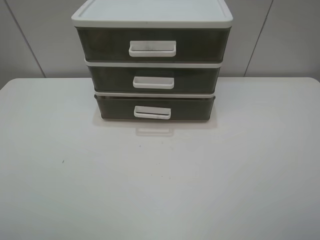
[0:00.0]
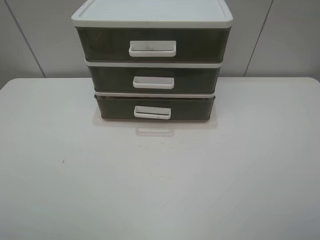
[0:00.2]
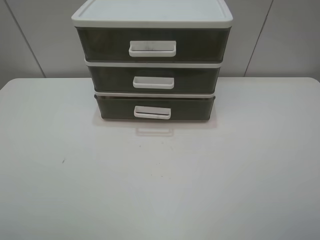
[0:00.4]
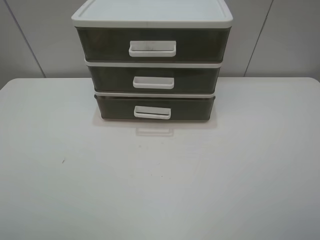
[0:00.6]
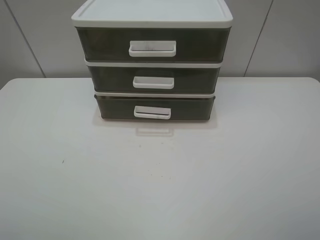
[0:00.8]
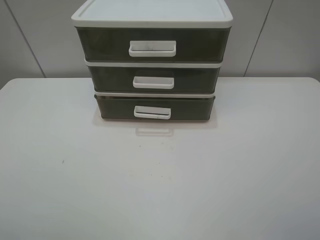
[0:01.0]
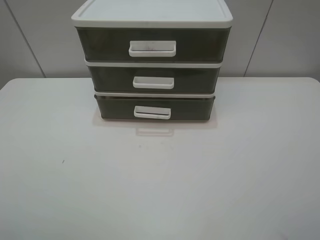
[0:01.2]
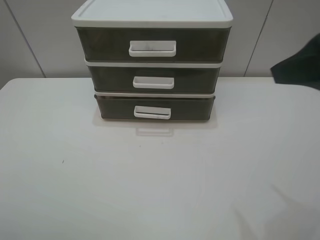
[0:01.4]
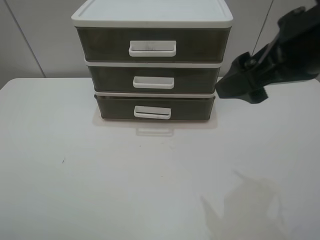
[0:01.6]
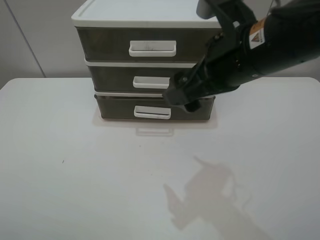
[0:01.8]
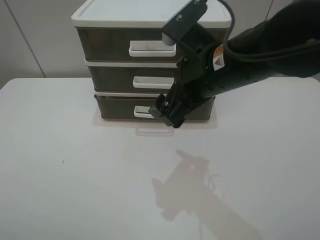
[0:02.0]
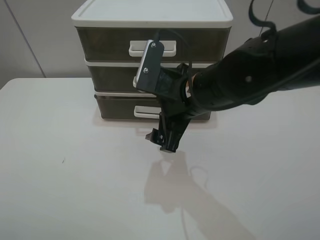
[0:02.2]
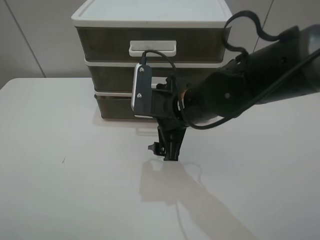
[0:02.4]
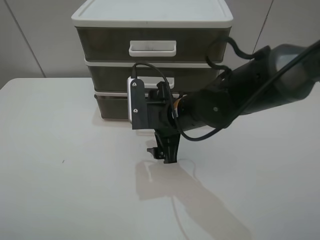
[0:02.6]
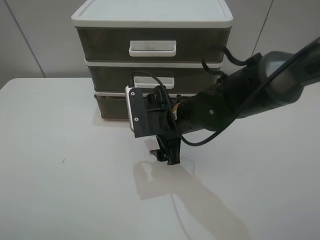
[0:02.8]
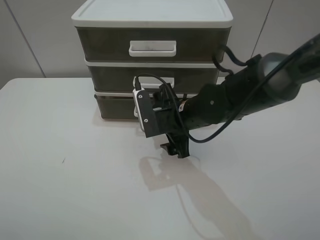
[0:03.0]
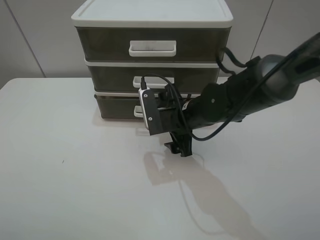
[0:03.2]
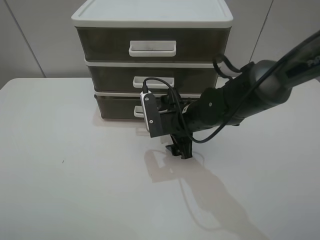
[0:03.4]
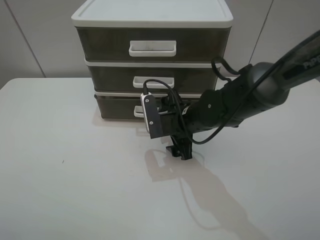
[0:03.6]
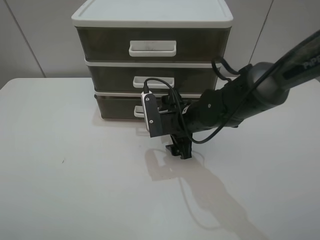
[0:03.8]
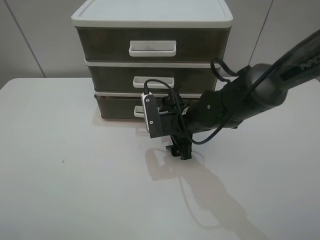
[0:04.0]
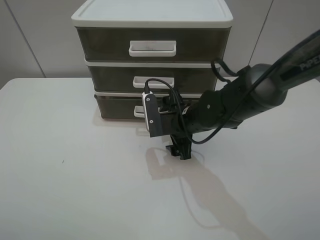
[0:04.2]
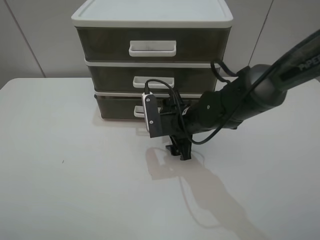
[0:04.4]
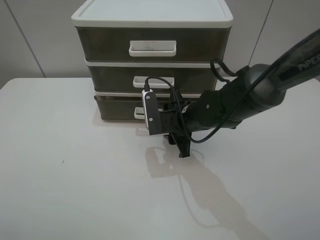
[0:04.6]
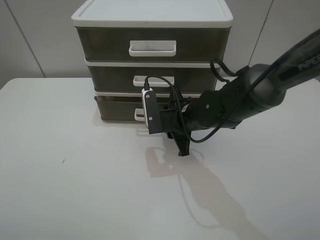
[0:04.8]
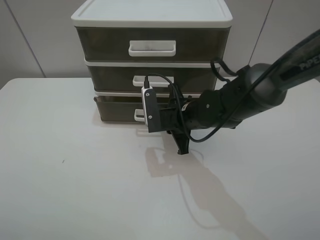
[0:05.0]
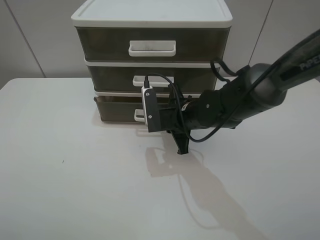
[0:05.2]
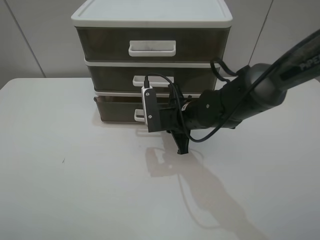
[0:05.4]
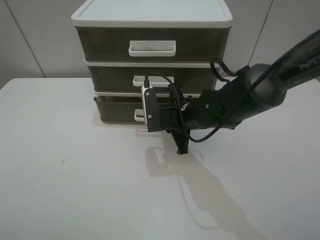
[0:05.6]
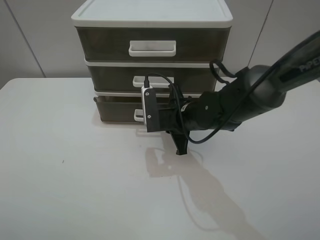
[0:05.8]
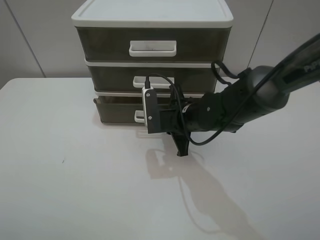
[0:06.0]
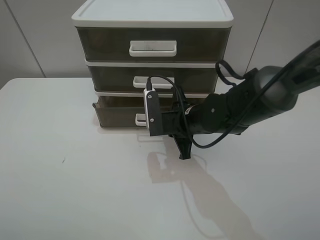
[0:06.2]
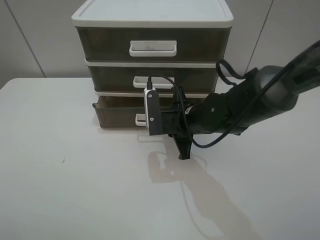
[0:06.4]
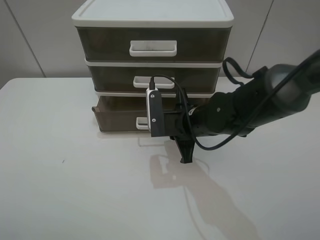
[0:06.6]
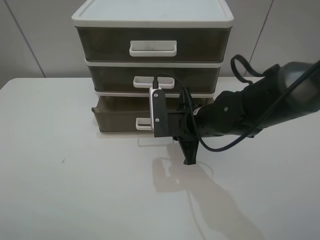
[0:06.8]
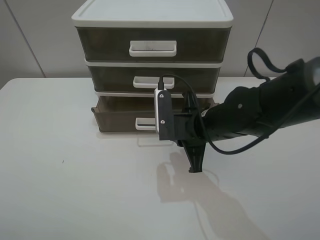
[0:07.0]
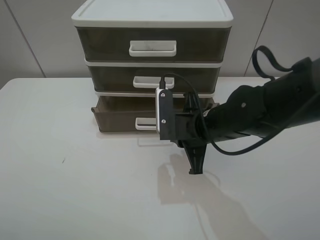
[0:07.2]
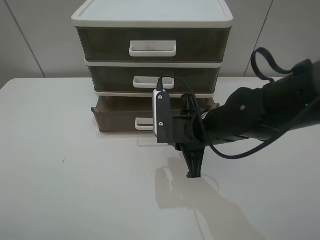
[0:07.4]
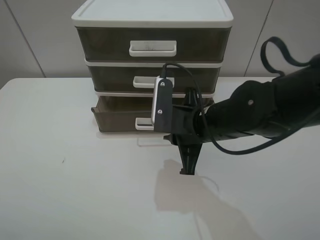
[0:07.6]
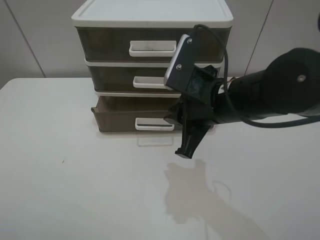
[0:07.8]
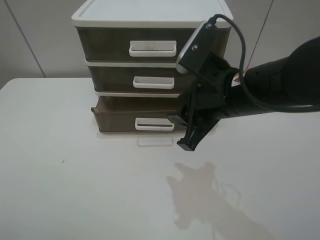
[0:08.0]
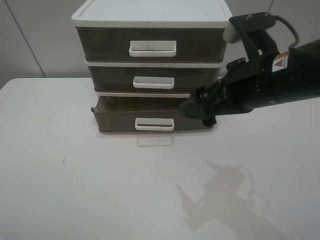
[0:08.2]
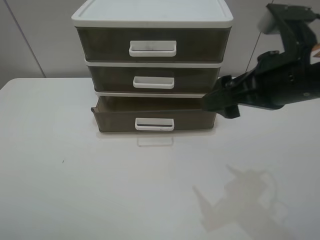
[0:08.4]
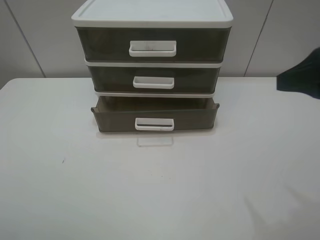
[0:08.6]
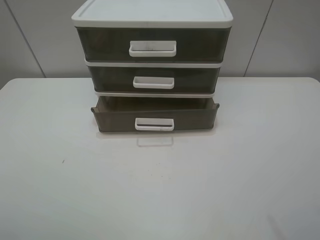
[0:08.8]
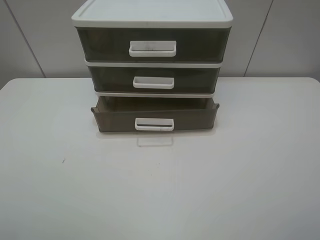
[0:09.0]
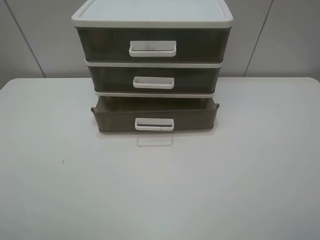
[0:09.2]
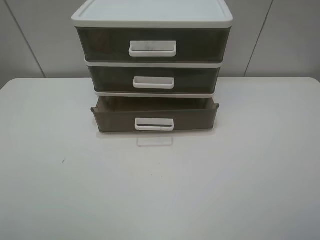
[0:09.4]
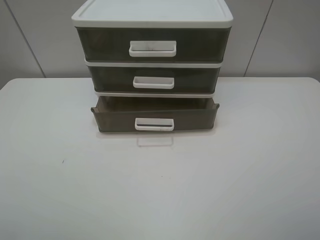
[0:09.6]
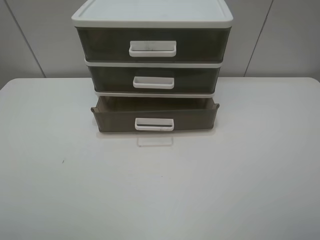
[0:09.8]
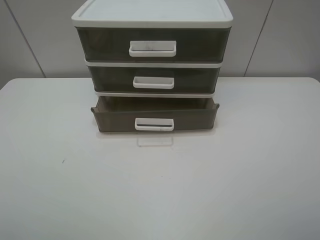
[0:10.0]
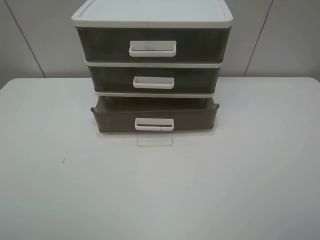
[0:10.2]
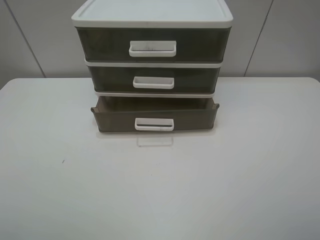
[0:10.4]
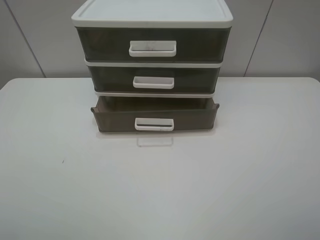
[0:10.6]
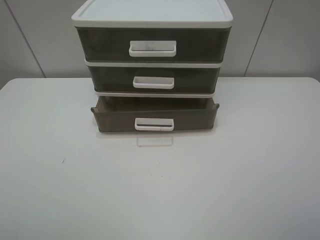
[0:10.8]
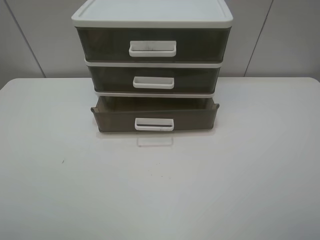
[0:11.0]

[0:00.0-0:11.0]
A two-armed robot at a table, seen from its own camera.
Task of the whole recording: open the bottom drawer.
Step, 0:00.0 to 0:05.4: Grab the bottom drawer with the right gripper.
Step, 0:05.6 to 0:07.8: Pull open the drawer with the right gripper.
0:00.0 to 0:01.6: The right gripper goes about 25 cm forward and to the left.
0:01.6 to 0:03.2: The right gripper heads downward, to the left and forward, covering approximately 25 cm.
0:03.2 to 0:04.8: The right gripper closes up.
0:04.8 to 0:06.2: The grippers make only small movements.
0:06.2 to 0:07.8: The right gripper is displaced upward and backward by roughly 10 cm.
0:07.8 to 0:09.4: The right gripper is displaced backward, to the right and upward by about 30 cm, and opens up.

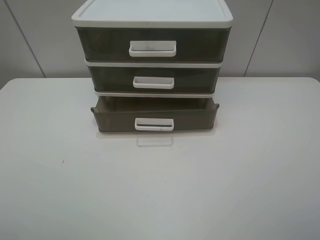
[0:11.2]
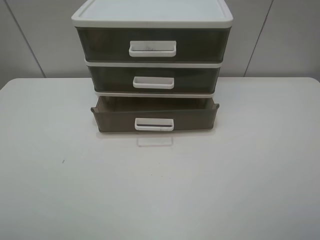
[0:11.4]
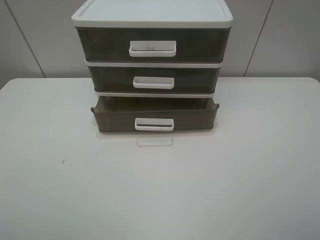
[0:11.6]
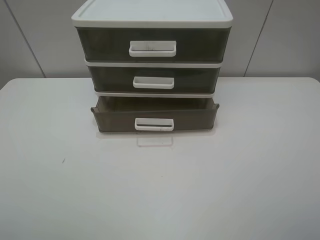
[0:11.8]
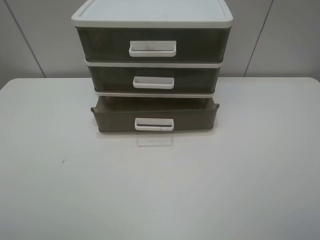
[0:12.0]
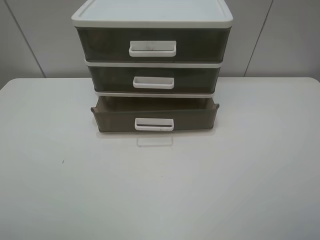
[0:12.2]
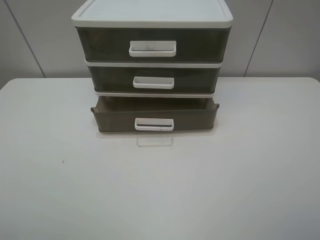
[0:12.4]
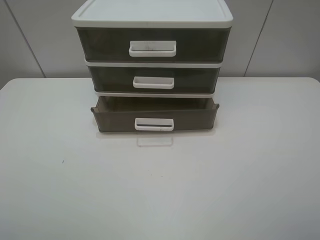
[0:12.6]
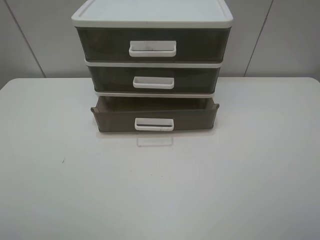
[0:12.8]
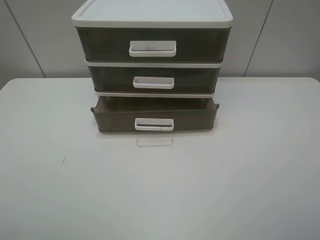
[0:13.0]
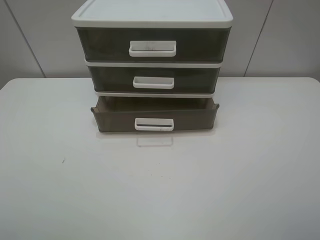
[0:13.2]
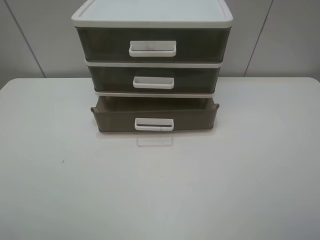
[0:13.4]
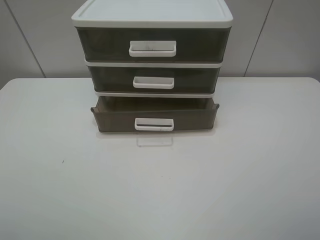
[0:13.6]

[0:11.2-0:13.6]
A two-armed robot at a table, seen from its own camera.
Task of the whole recording: open the bottom drawer.
0:11.2 to 0:13.6: The two grippers keep their place.

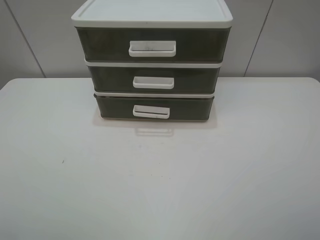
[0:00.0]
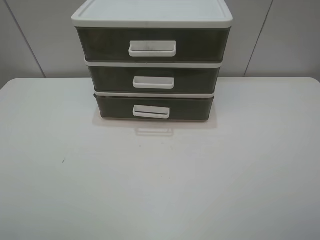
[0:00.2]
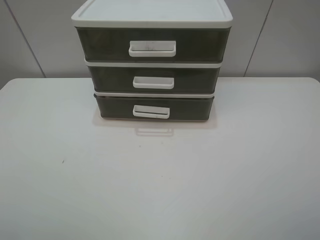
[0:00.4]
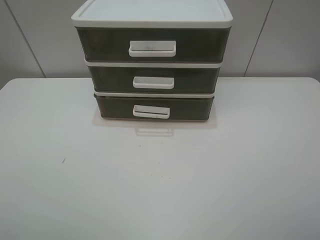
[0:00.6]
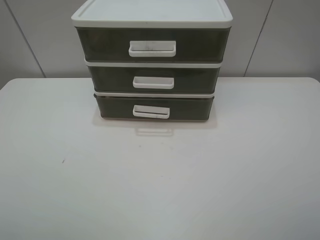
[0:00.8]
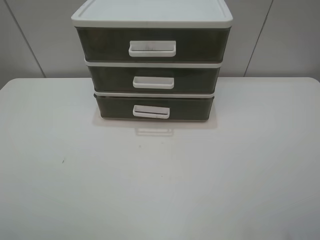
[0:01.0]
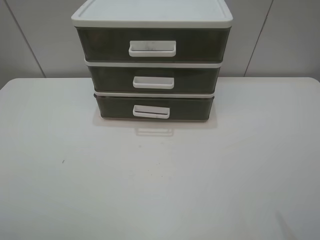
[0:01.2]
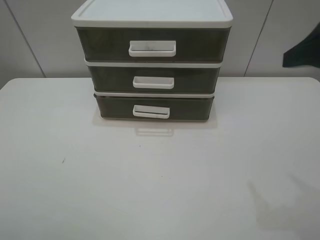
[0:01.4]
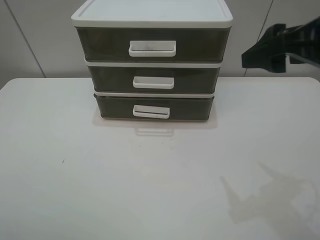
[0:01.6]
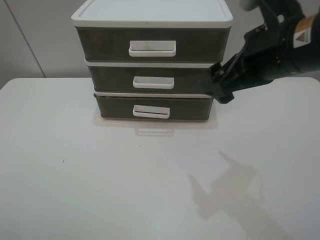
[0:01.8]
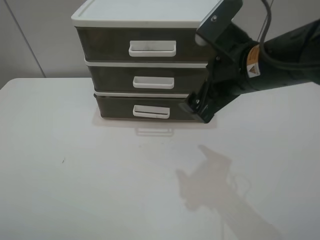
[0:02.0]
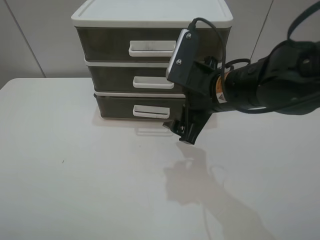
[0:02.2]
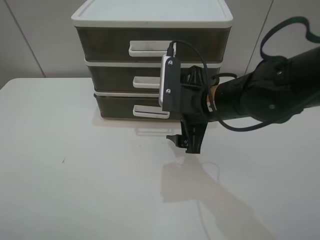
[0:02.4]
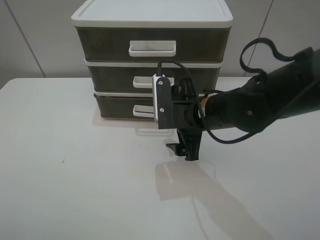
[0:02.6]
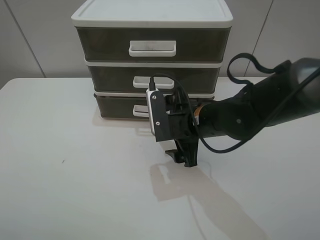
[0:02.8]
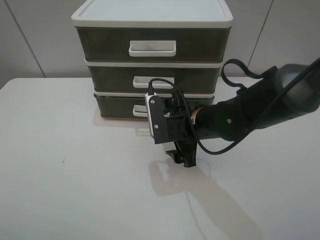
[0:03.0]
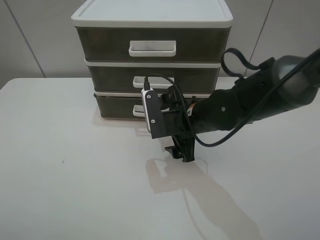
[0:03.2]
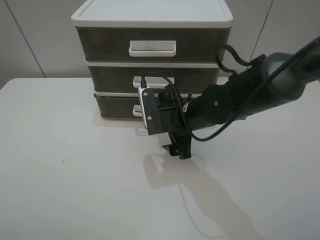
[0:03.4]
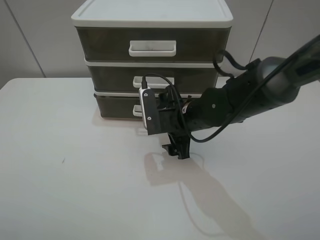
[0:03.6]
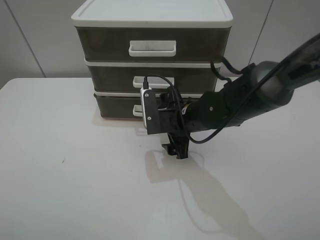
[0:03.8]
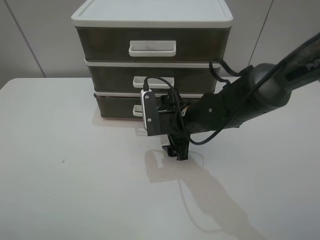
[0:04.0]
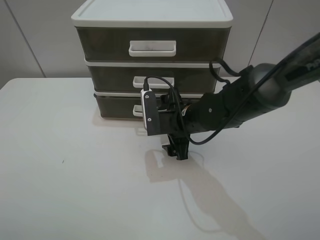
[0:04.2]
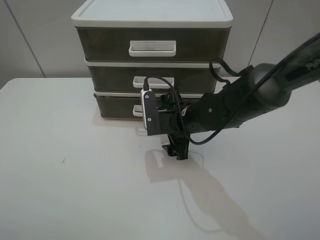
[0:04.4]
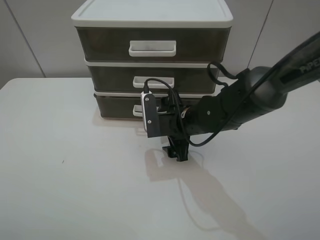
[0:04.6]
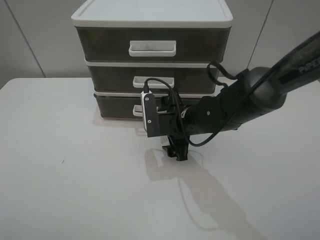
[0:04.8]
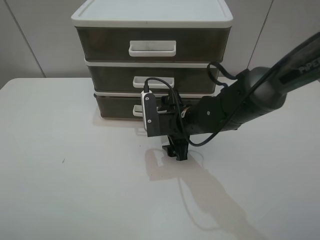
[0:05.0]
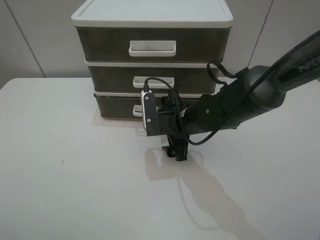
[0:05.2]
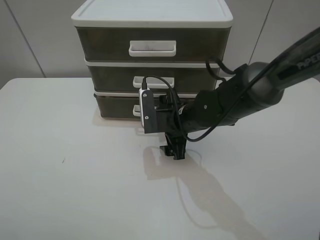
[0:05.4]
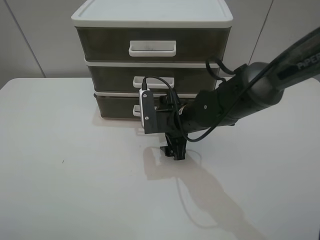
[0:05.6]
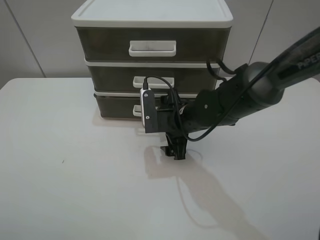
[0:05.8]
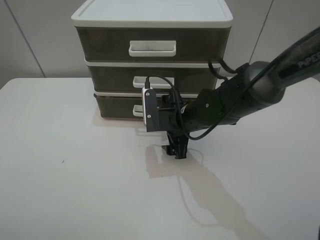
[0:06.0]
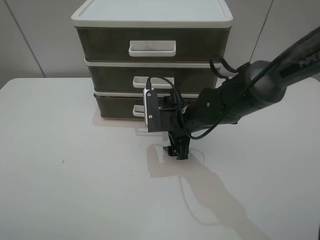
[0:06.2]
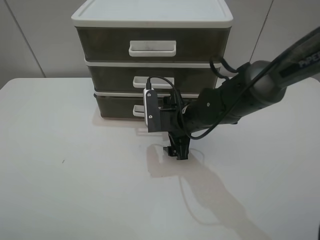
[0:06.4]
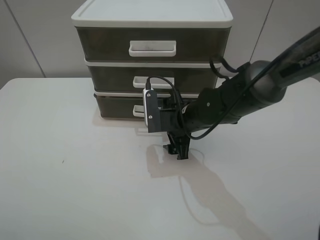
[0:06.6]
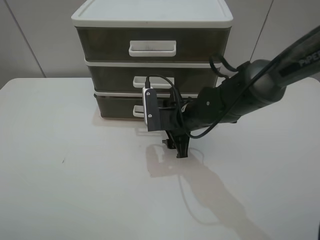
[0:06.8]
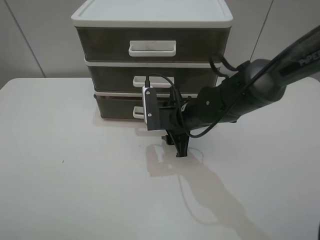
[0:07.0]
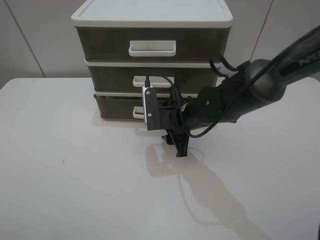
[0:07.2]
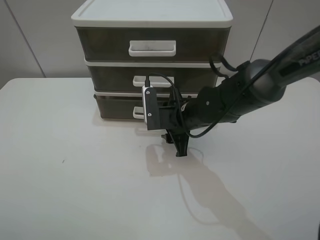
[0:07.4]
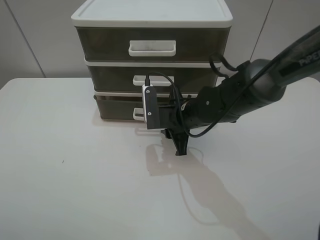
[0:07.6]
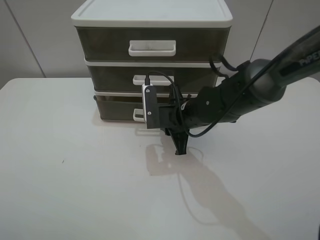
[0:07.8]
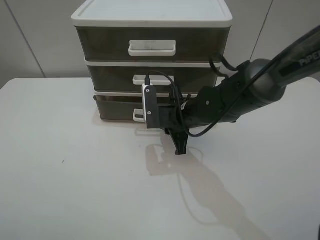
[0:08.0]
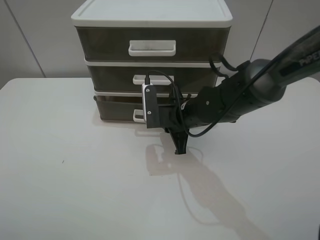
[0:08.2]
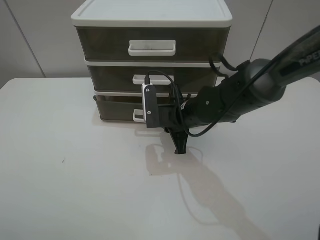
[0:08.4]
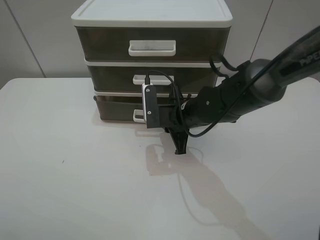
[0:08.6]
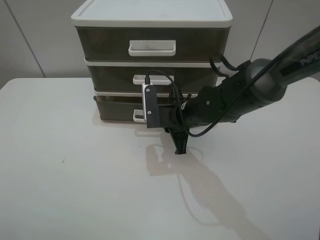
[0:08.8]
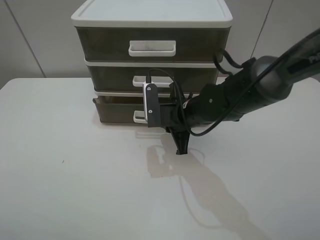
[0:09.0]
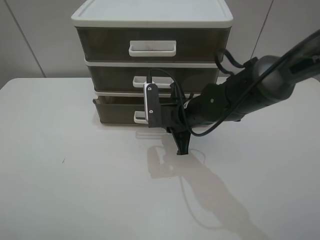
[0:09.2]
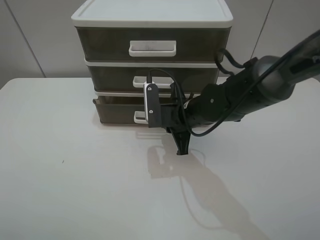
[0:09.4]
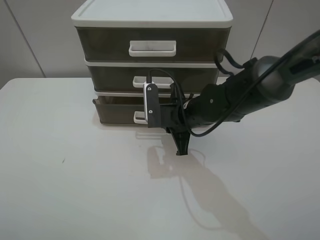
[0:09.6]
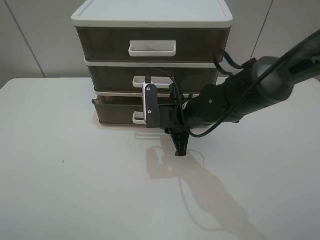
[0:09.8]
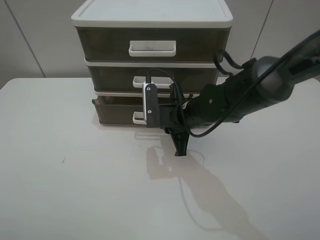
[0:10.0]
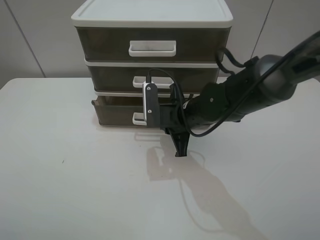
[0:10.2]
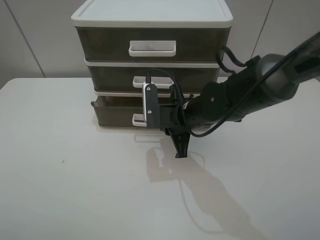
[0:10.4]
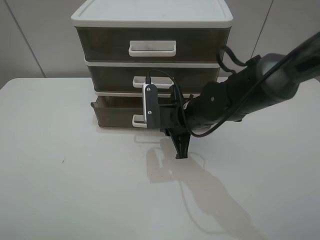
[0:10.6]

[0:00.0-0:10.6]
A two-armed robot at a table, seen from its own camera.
Task of the whole recording: open the bottom drawer.
Step, 0:00.0 to 0:08.8: Grab the bottom drawer with the right gripper.
0:00.0 to 0:01.6: The right gripper goes some 20 cm forward.
0:01.6 to 0:03.0: The right gripper goes about 25 cm downward and to the left.
0:03.0 to 0:04.6: The grippers move only a little.
0:04.6 to 0:06.0: Both grippers stay about where they are.
0:06.0 to 0:07.6: The right gripper closes up.
0:07.6 to 0:09.0: Neither gripper changes place.
0:09.0 to 0:10.6: Both grippers stay put.
